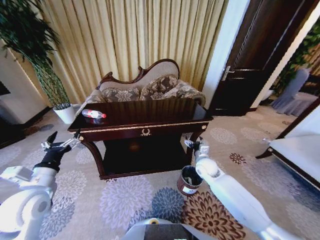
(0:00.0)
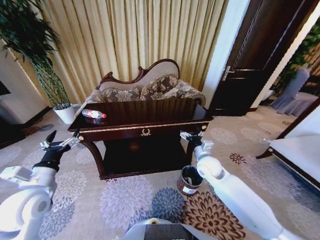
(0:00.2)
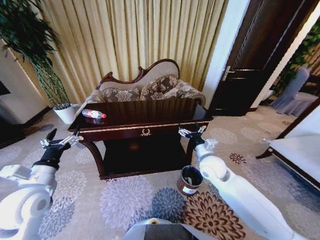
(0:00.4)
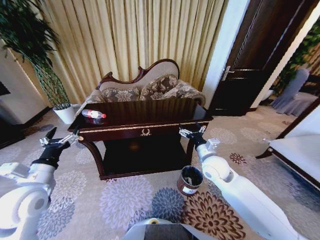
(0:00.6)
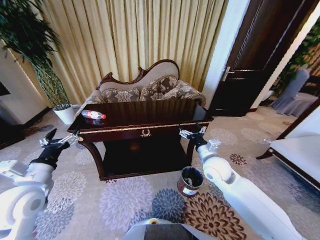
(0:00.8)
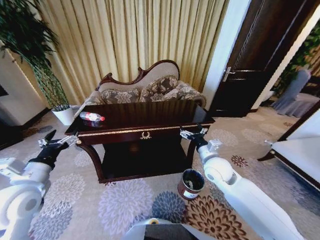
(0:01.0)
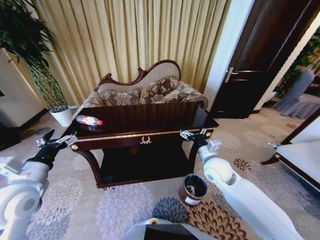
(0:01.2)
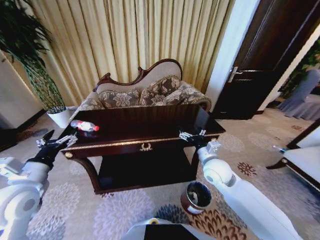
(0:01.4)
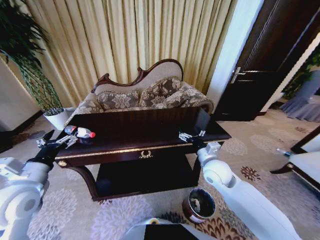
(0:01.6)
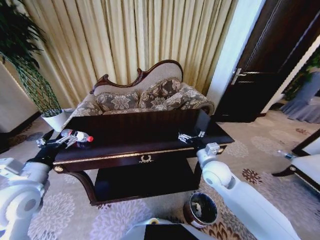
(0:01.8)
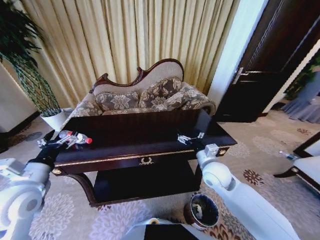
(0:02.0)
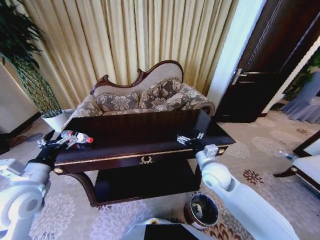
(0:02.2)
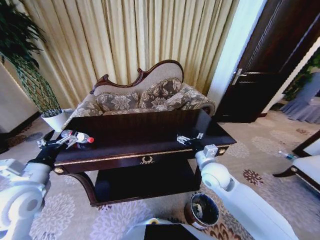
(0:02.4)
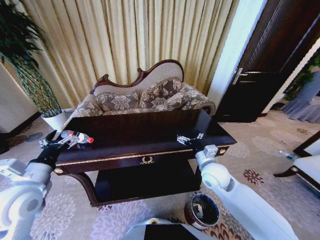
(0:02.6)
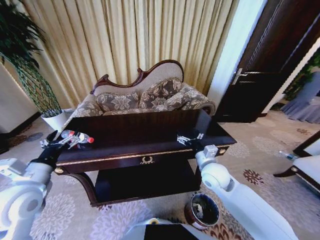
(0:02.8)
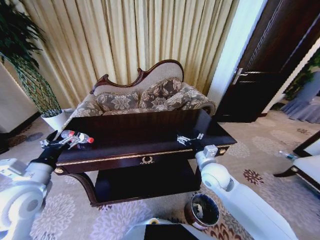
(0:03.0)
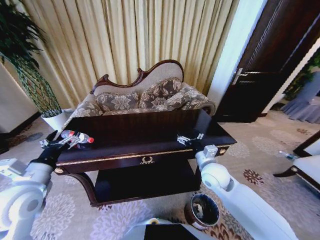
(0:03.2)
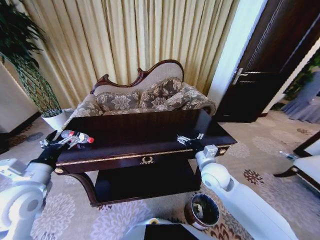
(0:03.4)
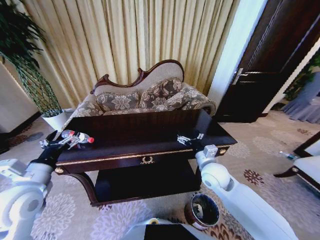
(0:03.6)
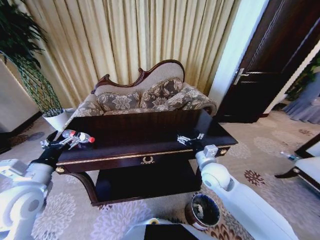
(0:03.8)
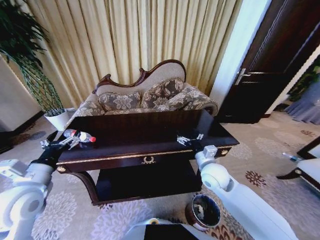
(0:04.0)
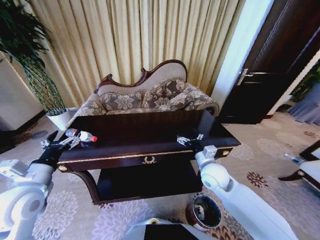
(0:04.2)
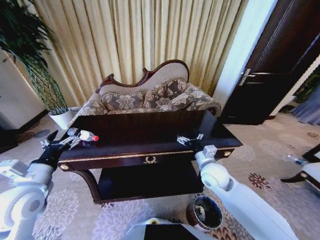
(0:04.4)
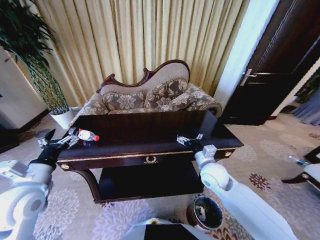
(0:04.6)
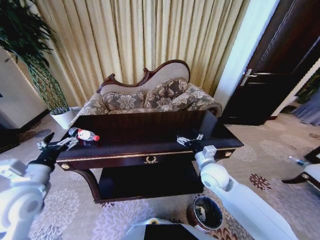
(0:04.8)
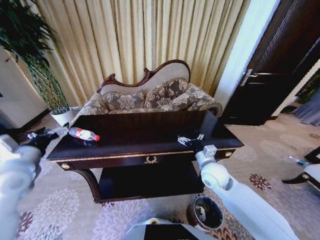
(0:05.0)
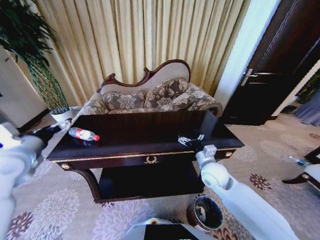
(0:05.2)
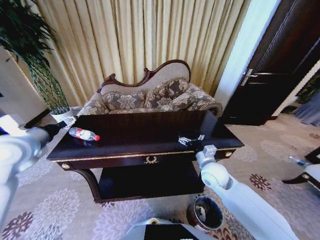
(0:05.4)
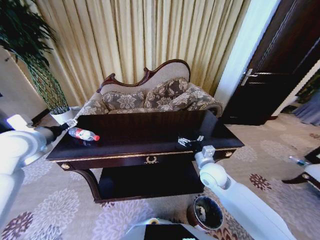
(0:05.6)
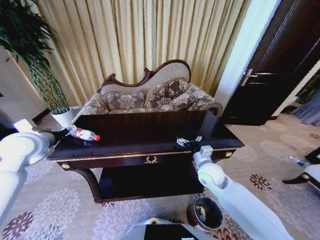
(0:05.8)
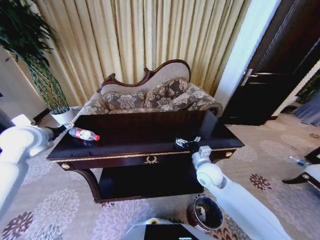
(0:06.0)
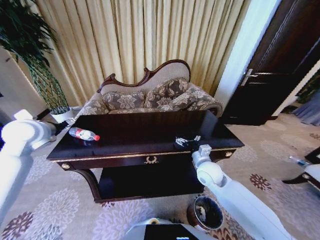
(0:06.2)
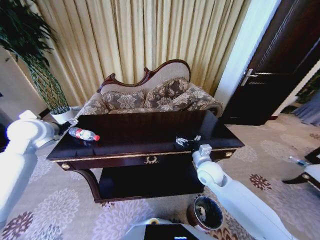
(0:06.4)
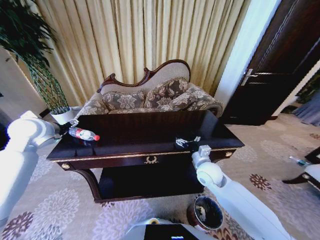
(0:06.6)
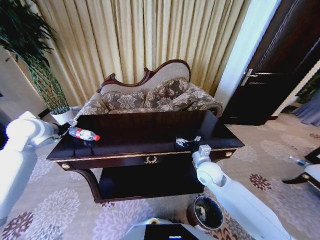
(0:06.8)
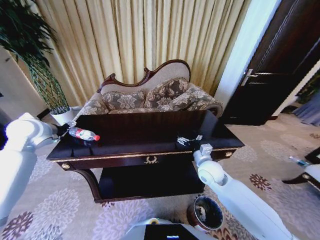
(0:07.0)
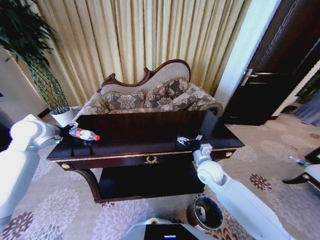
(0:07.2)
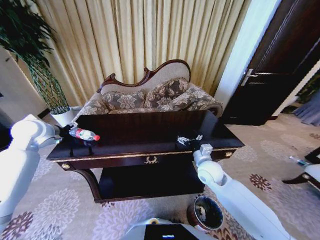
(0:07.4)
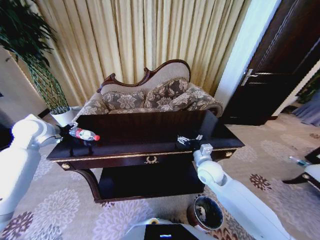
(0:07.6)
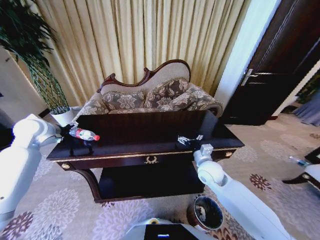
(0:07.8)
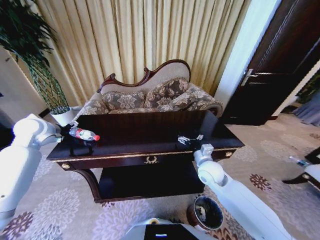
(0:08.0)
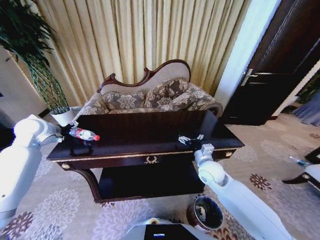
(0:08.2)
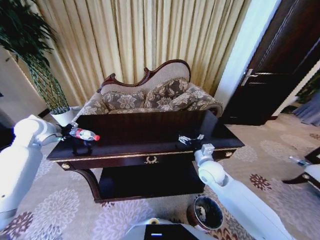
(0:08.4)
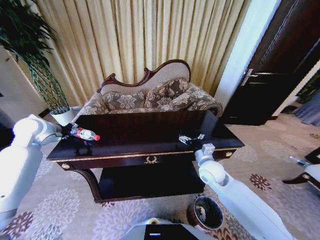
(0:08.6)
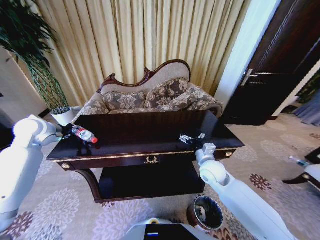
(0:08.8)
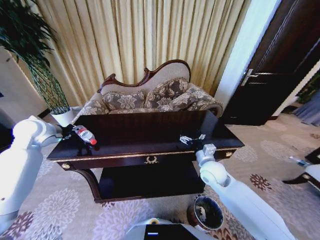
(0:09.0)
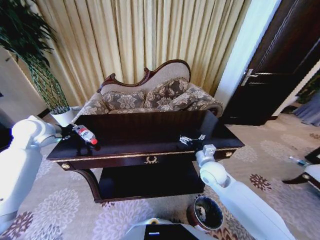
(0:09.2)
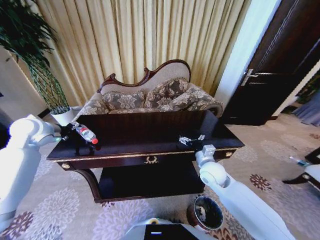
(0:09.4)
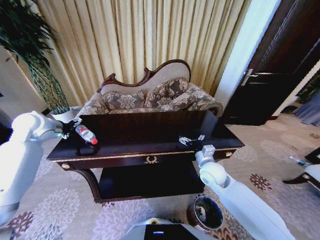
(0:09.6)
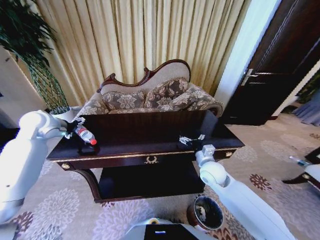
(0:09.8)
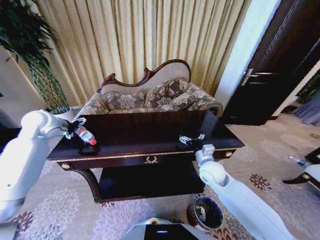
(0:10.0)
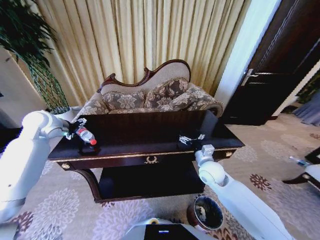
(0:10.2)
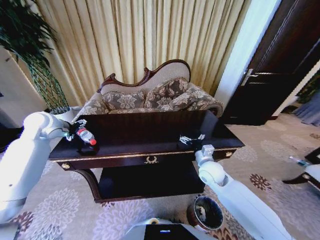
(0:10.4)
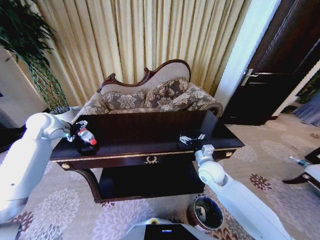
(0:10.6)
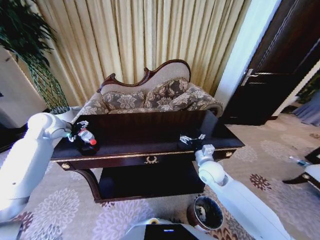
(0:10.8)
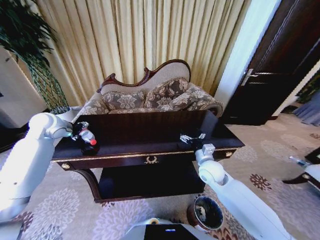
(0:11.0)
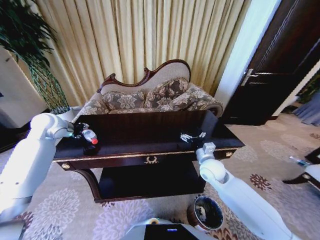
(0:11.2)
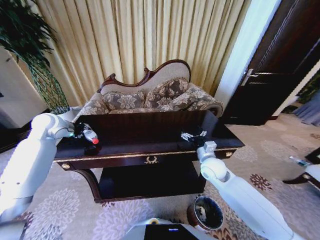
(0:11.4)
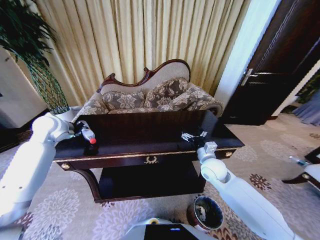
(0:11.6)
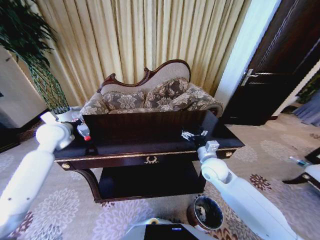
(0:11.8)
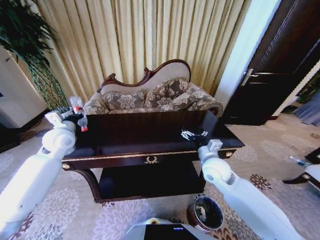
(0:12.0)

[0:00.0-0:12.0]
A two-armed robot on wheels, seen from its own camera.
Task of the whole recording: Move to the front of the table and place the trash on the table into the trash bin.
0:00.0 to 0:01.6: The right gripper is displaced upward and backward by some 15 cm.
0:04.4 to 0:06.0: The left gripper heads forward and upward, covering some 20 cm.
0:06.0 to 0:07.6: The left gripper shifts about 5 cm forward.
0:07.6 to 0:09.0: The left gripper closes its fingers.
0:09.0 to 0:10.4: The left gripper opens.
0:10.4 to 0:12.0: The left gripper travels to the right by approximately 5 cm, and closes its fingers.

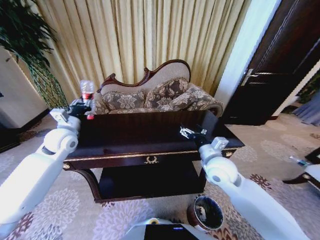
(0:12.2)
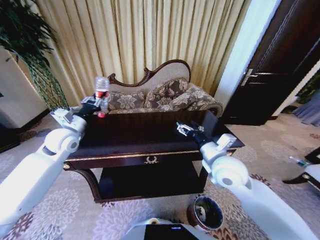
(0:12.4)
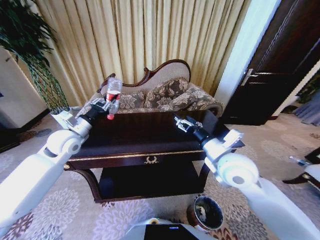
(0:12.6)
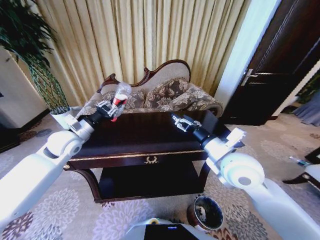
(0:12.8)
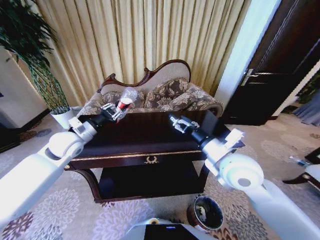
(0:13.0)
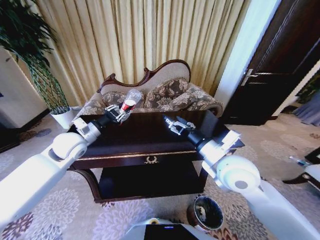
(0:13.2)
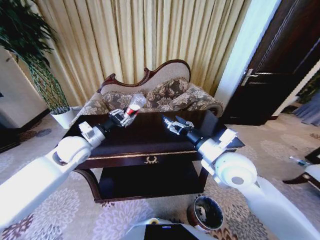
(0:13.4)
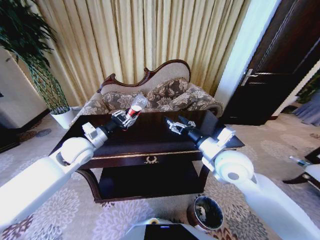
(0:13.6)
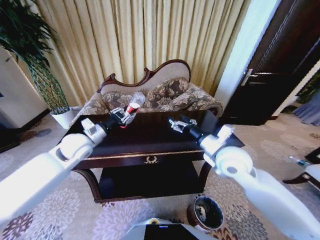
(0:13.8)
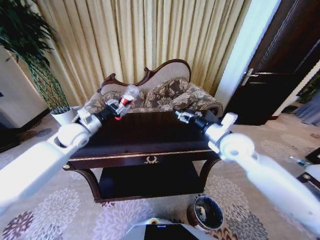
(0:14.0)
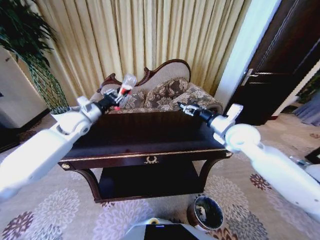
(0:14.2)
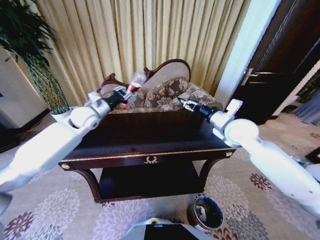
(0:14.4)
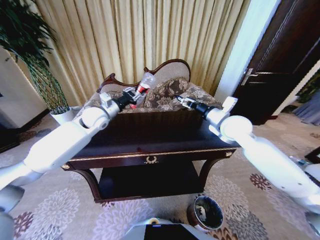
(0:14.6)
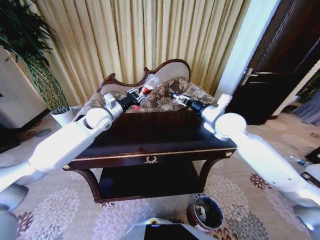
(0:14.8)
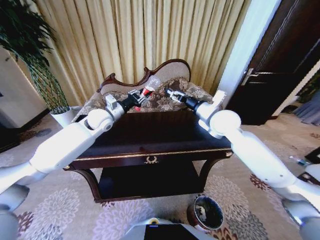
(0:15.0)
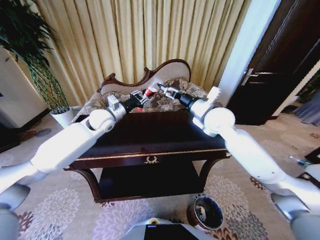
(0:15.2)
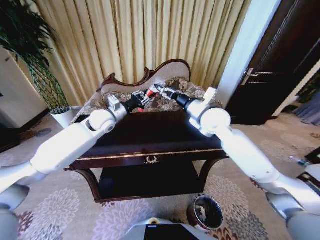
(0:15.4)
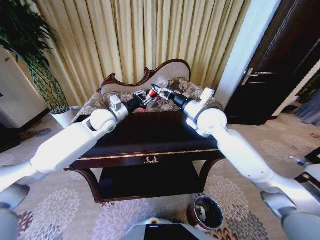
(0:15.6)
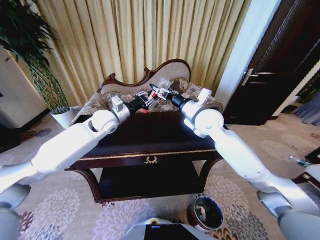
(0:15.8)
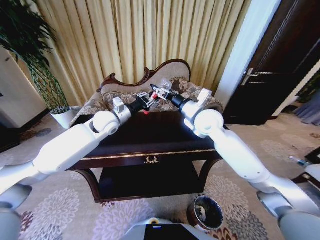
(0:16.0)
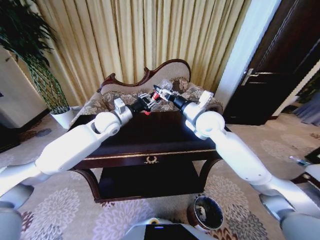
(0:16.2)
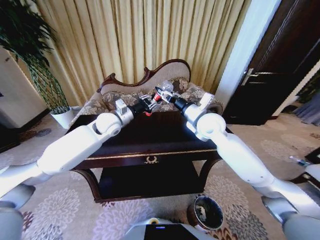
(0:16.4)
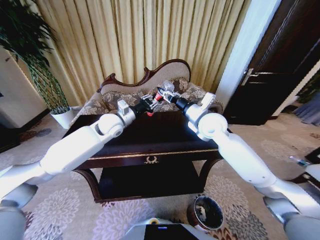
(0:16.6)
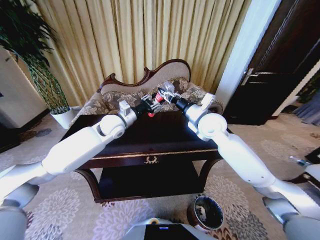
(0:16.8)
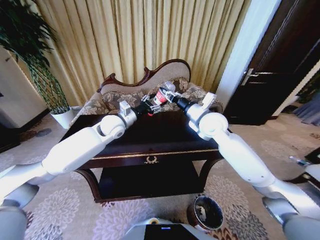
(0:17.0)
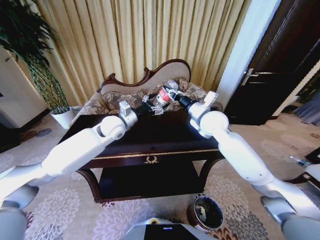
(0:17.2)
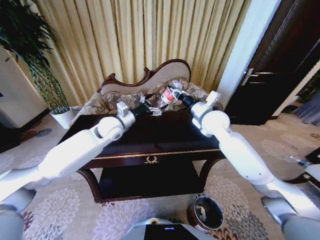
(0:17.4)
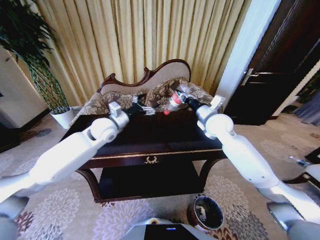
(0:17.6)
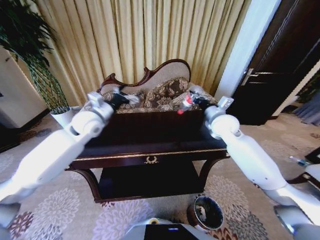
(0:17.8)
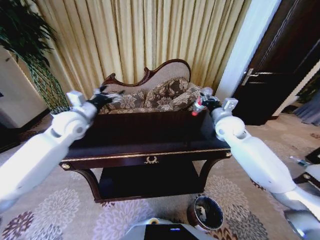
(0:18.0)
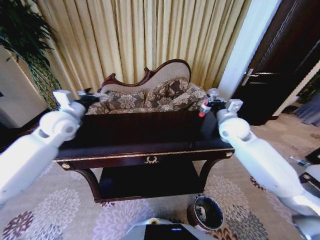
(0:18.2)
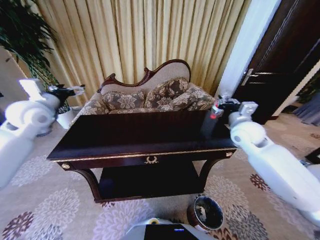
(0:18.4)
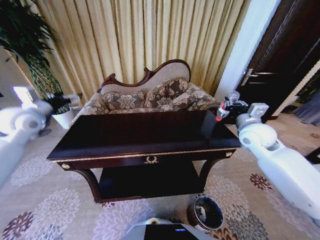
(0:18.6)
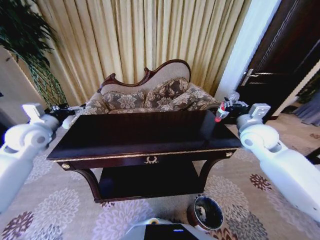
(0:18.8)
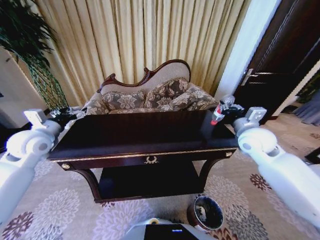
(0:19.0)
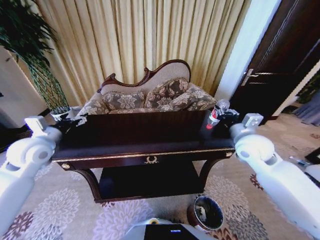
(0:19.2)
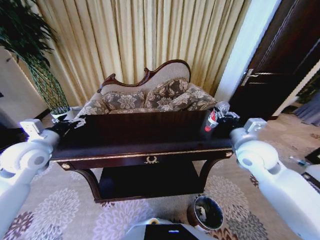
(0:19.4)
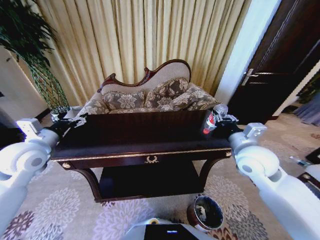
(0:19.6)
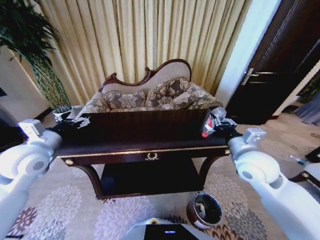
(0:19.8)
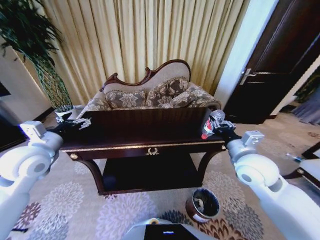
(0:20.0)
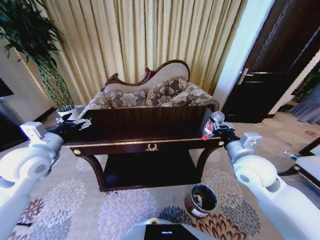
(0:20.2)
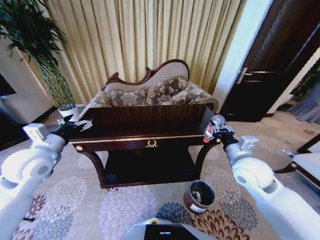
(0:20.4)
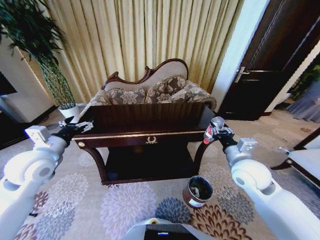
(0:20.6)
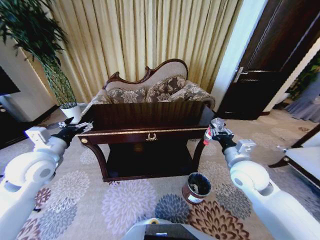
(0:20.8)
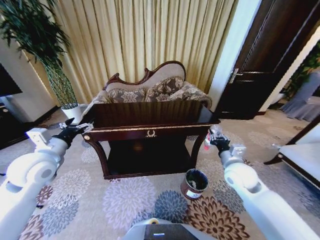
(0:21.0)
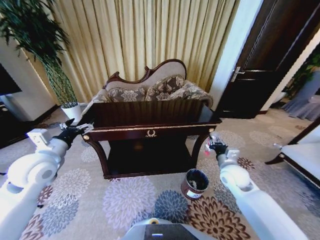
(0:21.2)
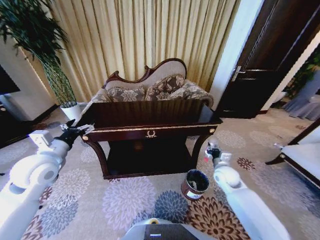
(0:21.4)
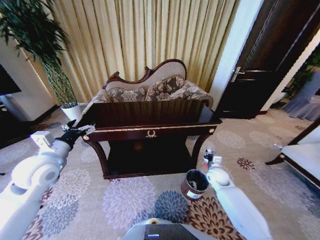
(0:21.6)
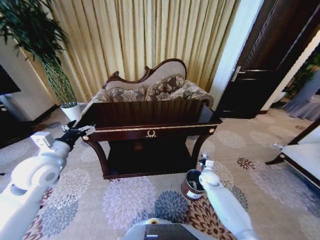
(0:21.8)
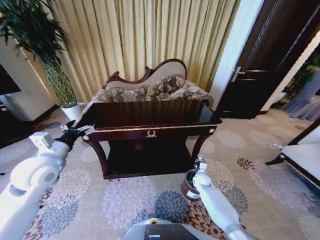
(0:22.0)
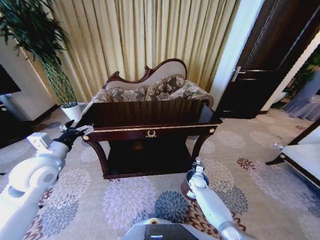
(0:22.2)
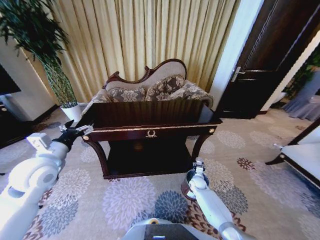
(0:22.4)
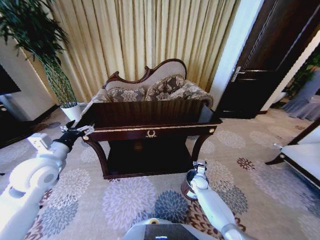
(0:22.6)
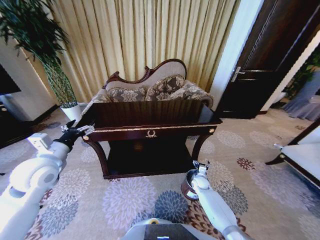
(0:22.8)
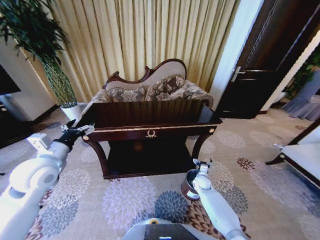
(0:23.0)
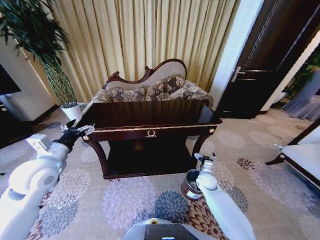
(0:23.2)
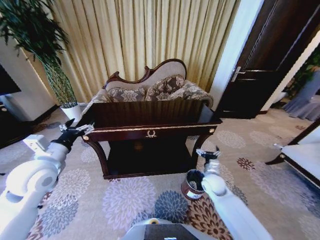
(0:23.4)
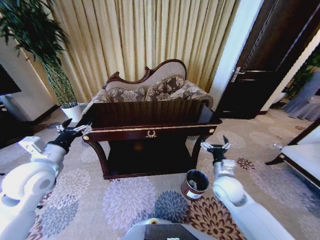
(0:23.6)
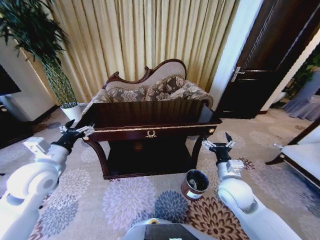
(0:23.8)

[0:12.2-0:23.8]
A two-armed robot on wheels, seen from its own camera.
Task of the whole recording: Move to the front of the table and place the trash on the table into the trash bin.
0:12.2 to 0:13.6: The left gripper shifts approximately 10 cm to the right. Meanwhile the right gripper moves upward, about 10 cm.
0:13.6 to 0:15.0: Both grippers move forward, about 15 cm.
0:15.0 to 0:16.6: The left gripper moves to the right, some 5 cm. Meanwhile the right gripper closes up.
0:16.6 to 0:18.0: The right gripper travels to the right by roughly 10 cm. Meanwhile the left gripper heads to the left, covering about 15 cm, and opens.
0:18.0 to 0:19.4: The left gripper goes approximately 15 cm backward and to the left. Meanwhile the right gripper goes about 15 cm backward.
0:19.4 to 0:21.0: The left gripper ends up some 5 cm from where it was; the right gripper moves downward, some 10 cm.
0:21.0 to 0:22.4: The right gripper travels downward by about 35 cm.
0:22.4 to 0:23.8: The right gripper goes approximately 30 cm upward and backward, and opens up.
